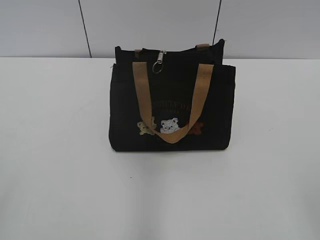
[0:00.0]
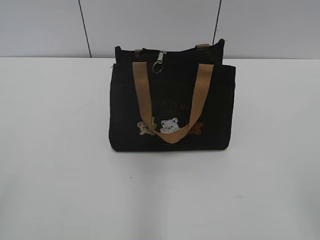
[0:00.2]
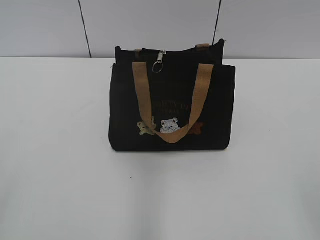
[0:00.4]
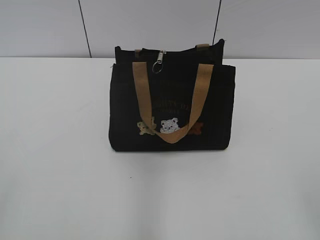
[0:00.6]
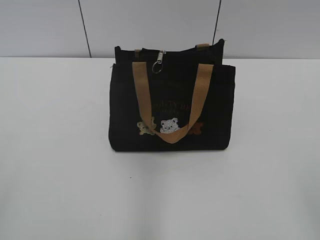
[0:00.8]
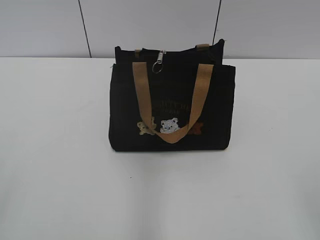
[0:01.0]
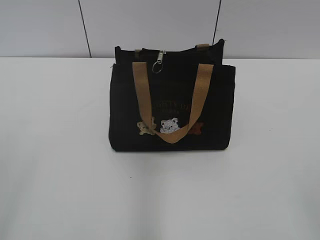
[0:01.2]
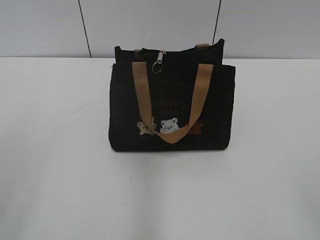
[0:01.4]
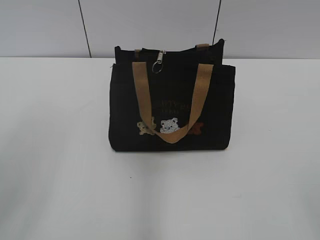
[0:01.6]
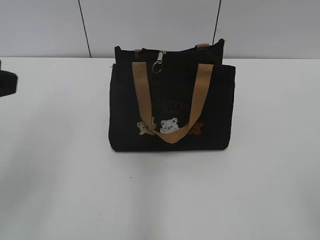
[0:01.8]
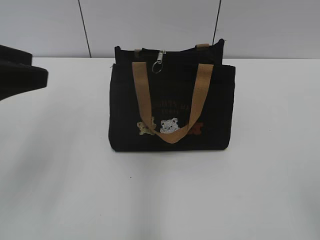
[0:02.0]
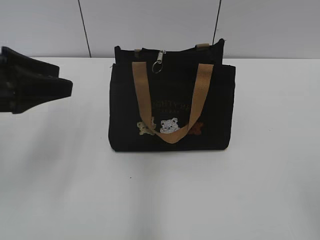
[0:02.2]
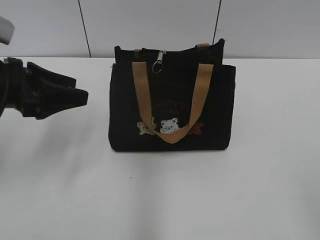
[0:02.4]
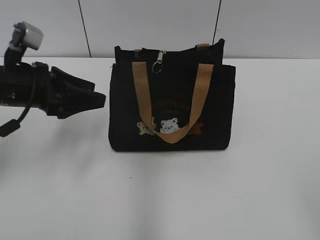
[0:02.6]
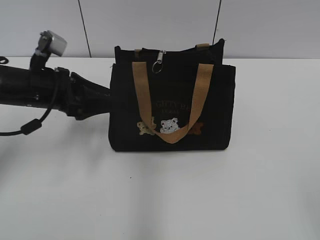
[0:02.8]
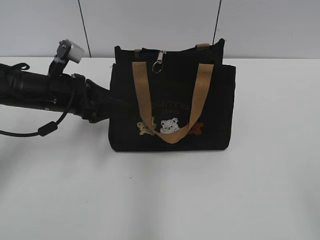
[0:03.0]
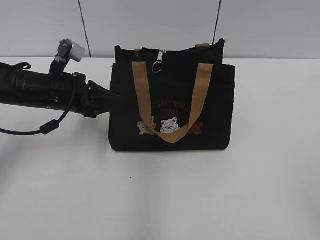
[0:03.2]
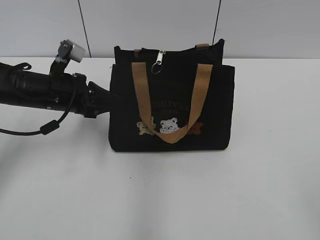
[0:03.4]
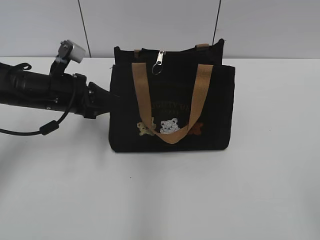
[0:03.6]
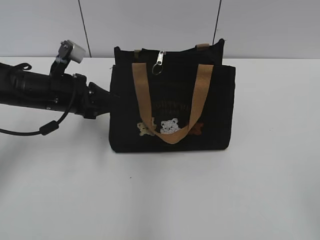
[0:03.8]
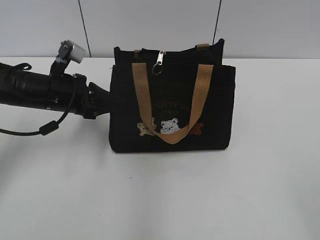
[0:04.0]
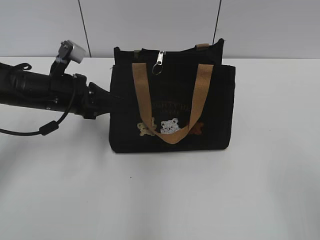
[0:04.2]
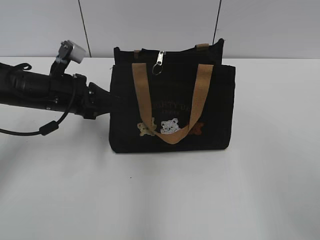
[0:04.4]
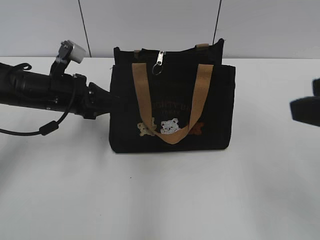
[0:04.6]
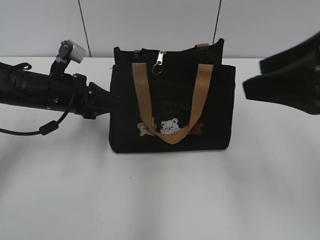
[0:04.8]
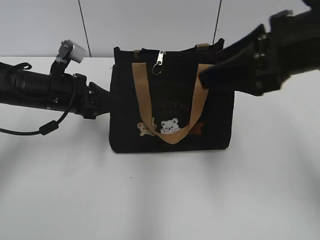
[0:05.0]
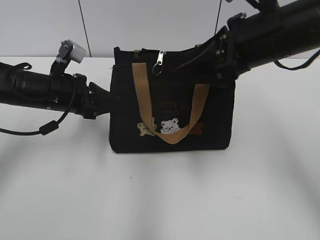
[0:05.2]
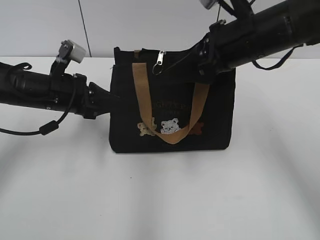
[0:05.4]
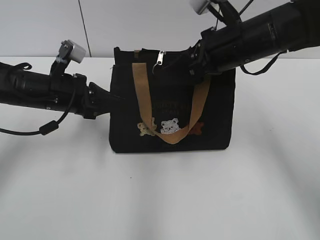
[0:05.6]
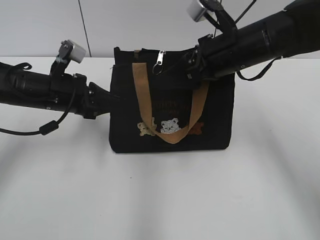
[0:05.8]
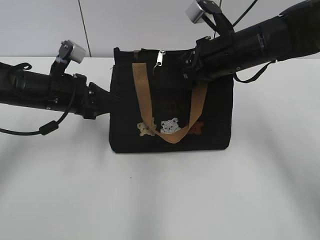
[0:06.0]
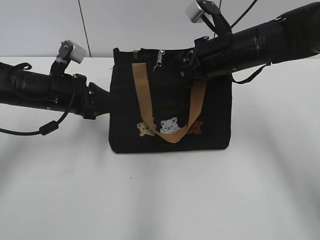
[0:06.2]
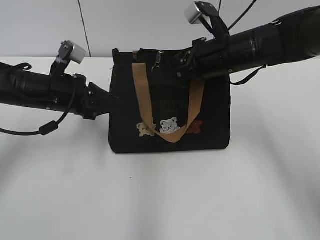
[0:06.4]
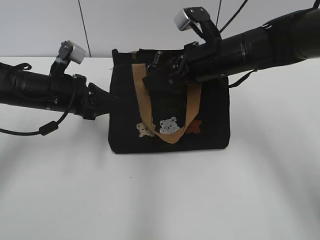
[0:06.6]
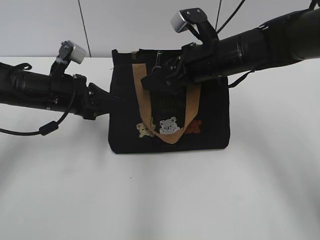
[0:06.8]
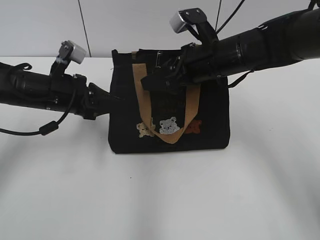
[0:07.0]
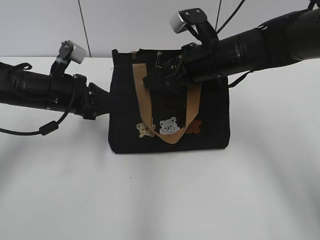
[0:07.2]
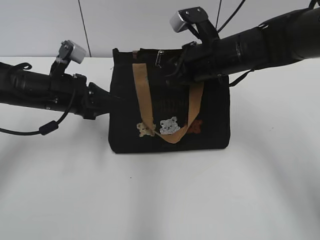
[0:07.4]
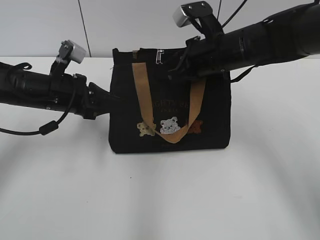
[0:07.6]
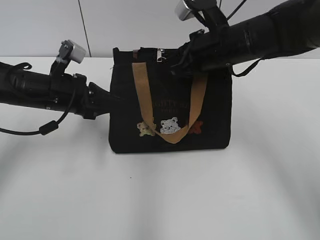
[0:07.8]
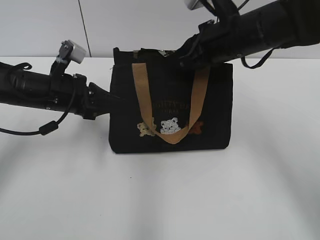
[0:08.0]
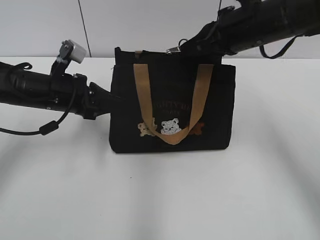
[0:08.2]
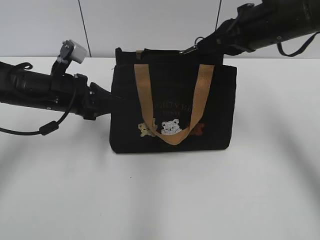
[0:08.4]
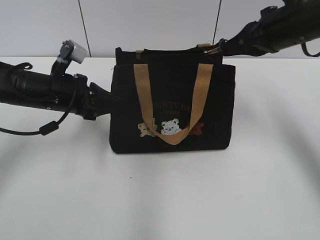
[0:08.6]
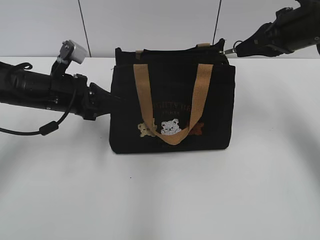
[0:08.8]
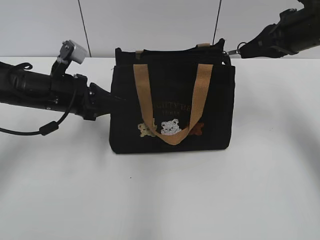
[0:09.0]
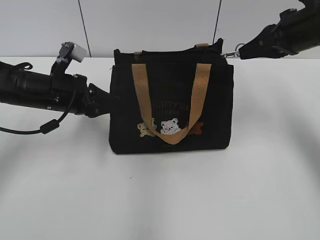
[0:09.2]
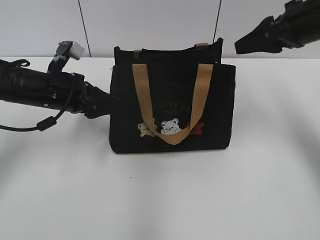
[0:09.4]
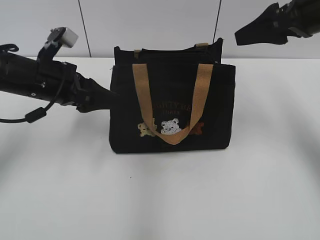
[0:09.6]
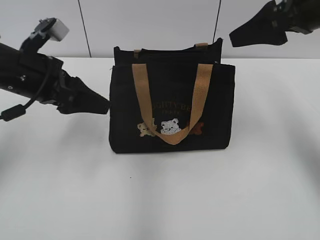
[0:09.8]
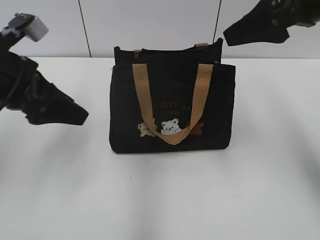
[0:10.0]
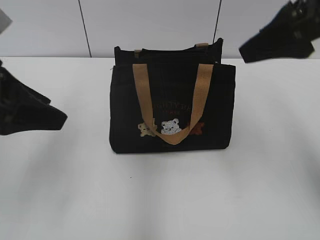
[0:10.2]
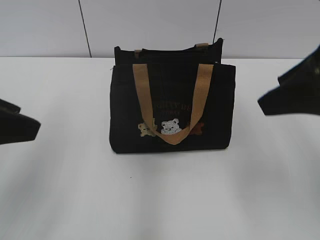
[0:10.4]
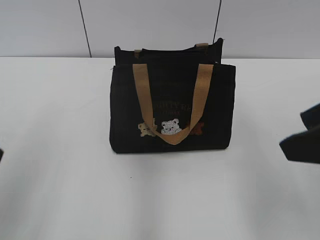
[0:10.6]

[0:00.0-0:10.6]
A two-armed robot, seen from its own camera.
Step, 0:00.0 to 0:09.2: Pull open the zipper with your right hand.
Step, 0:09.4 to 0:09.8: Hold the bag with your left hand.
0:01.6 to 0:03.0: The left gripper is displaced forward and downward by about 30 cm.
0:03.0 to 0:04.6: The left gripper closes; the right gripper travels forward by some 15 cm.
0:04.6 to 0:06.0: The right gripper shifts roughly 25 cm forward, to the left and downward.
0:06.0 to 0:07.6: The right gripper closes.
0:07.6 to 0:09.0: The right gripper moves to the right, some 15 cm.
0:09.0 to 0:10.6: The left gripper heads backward and upward, covering roughly 25 cm, and opens up; the right gripper is displaced backward by about 20 cm, and opens.

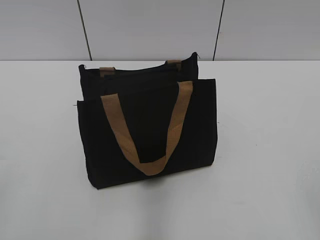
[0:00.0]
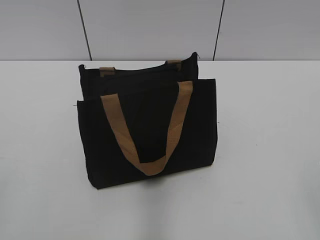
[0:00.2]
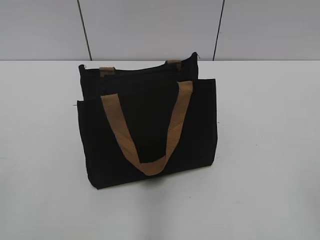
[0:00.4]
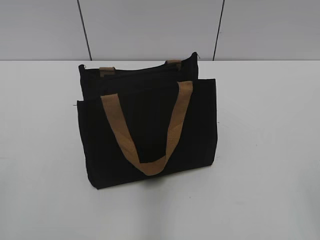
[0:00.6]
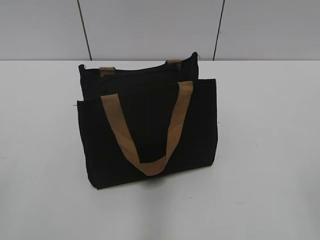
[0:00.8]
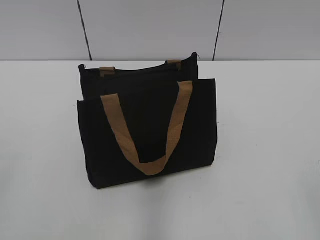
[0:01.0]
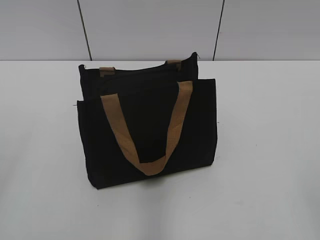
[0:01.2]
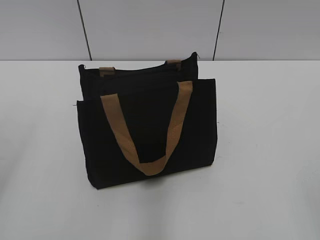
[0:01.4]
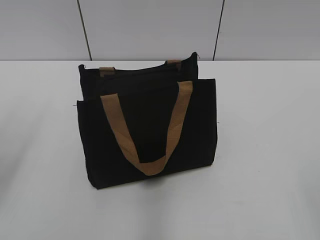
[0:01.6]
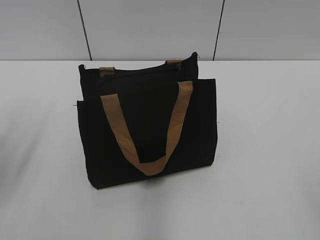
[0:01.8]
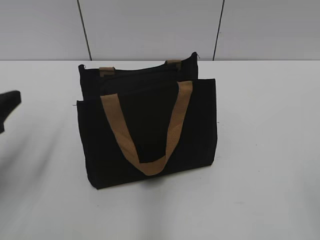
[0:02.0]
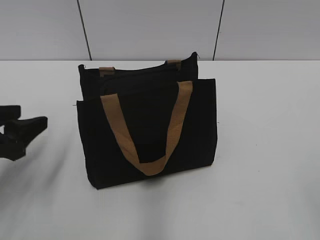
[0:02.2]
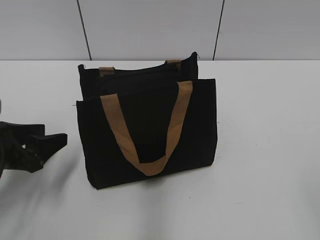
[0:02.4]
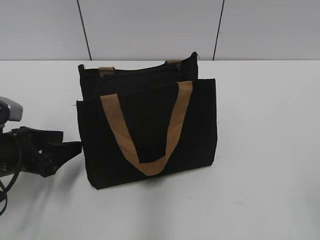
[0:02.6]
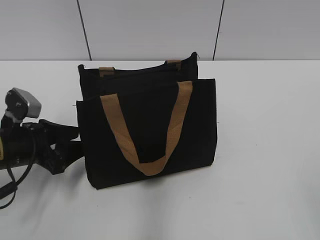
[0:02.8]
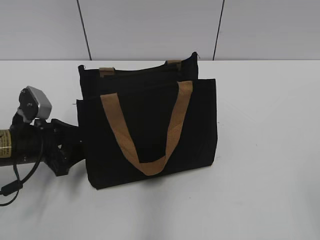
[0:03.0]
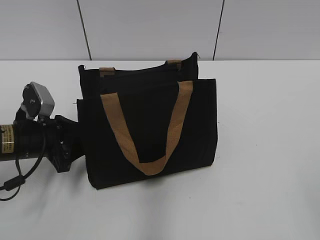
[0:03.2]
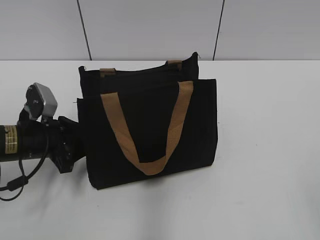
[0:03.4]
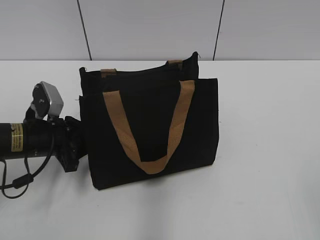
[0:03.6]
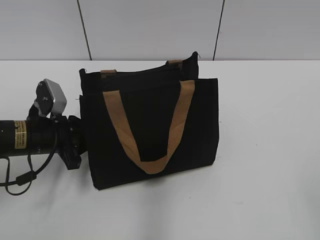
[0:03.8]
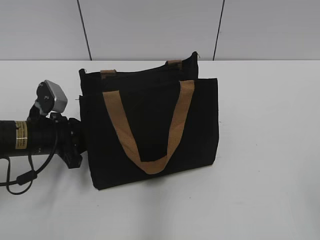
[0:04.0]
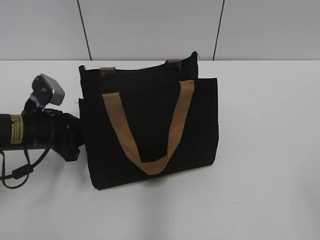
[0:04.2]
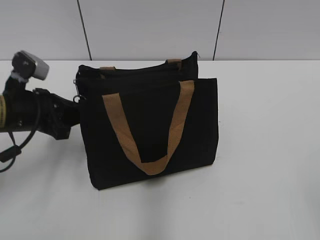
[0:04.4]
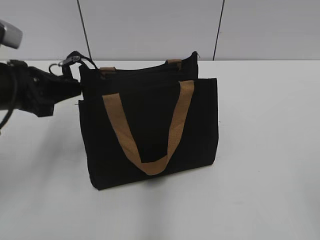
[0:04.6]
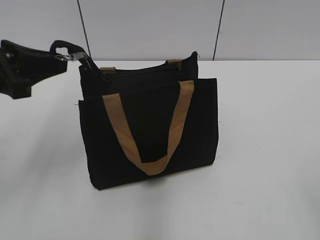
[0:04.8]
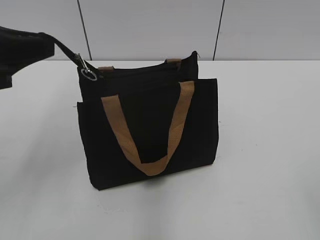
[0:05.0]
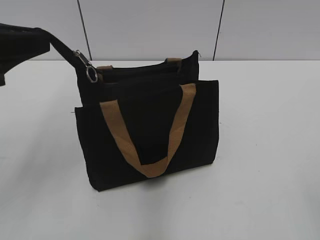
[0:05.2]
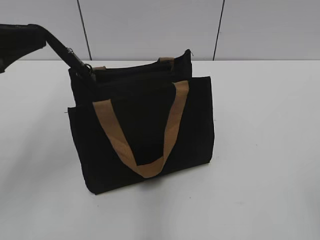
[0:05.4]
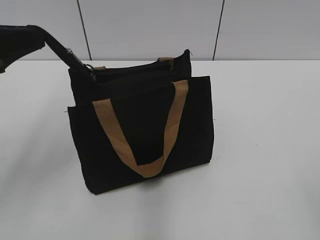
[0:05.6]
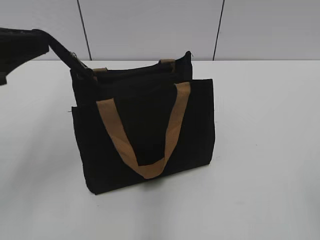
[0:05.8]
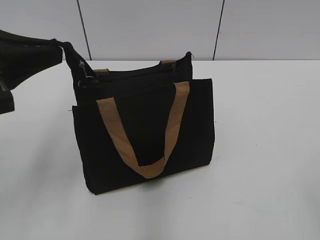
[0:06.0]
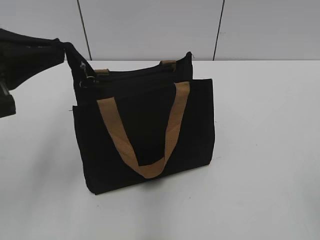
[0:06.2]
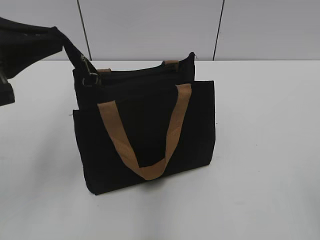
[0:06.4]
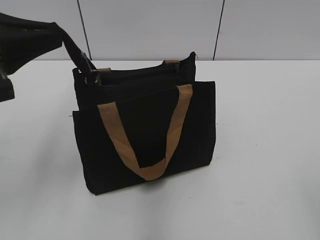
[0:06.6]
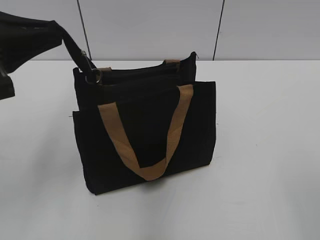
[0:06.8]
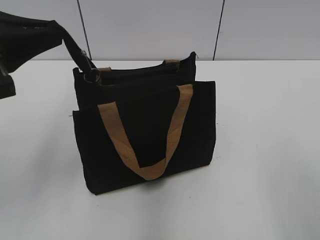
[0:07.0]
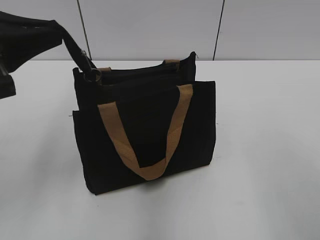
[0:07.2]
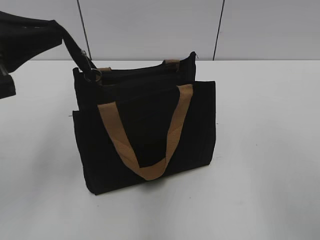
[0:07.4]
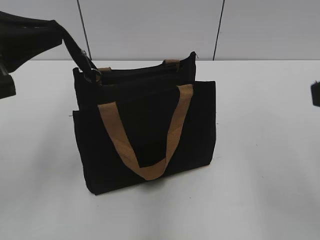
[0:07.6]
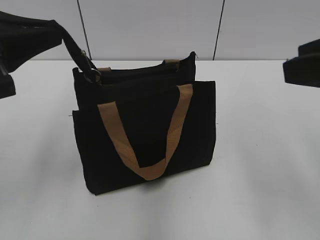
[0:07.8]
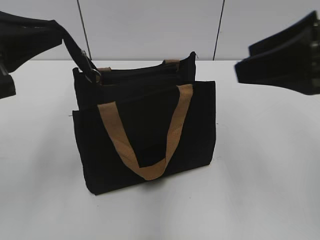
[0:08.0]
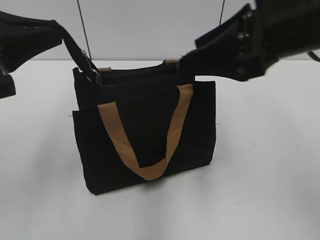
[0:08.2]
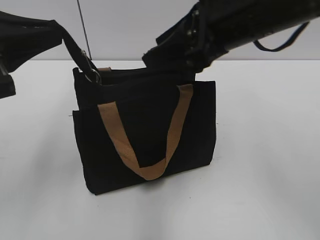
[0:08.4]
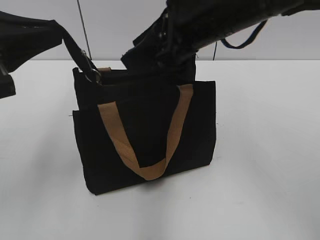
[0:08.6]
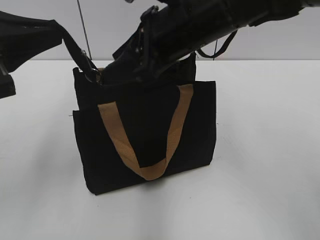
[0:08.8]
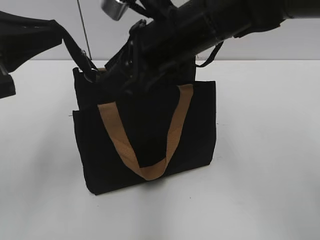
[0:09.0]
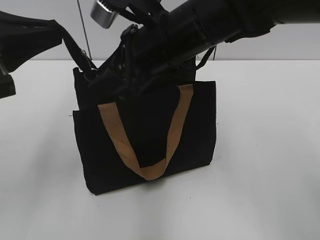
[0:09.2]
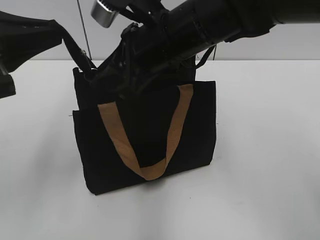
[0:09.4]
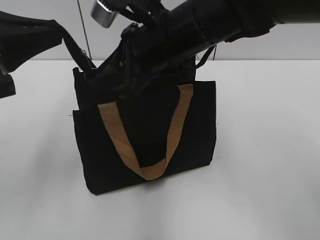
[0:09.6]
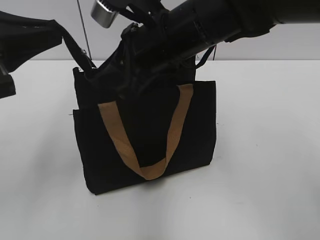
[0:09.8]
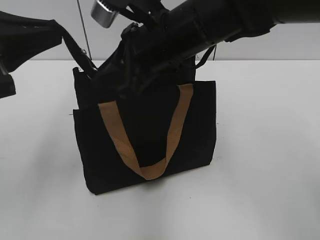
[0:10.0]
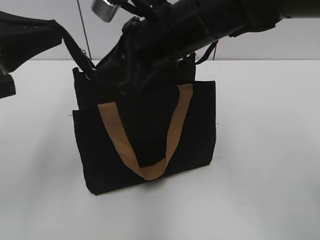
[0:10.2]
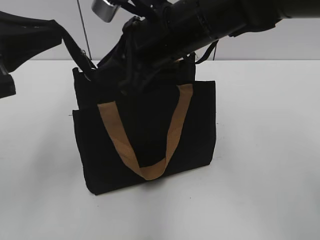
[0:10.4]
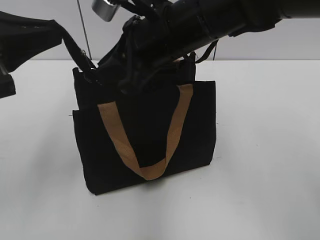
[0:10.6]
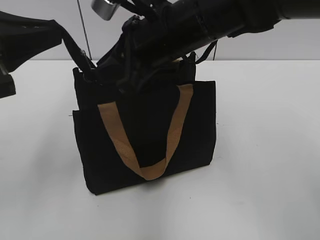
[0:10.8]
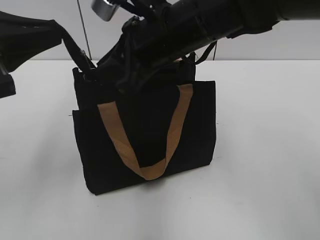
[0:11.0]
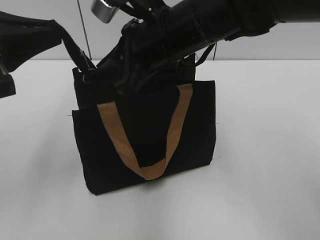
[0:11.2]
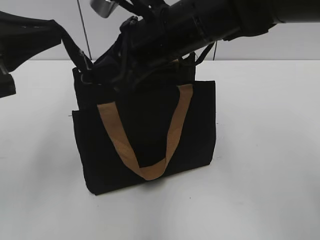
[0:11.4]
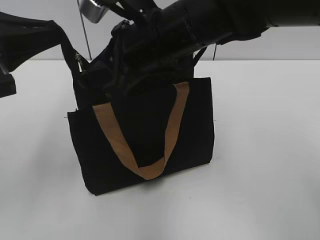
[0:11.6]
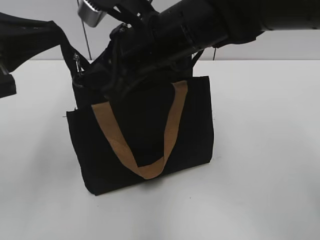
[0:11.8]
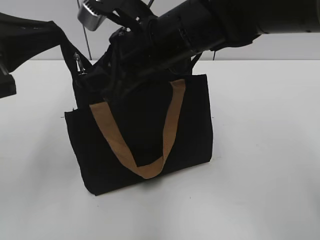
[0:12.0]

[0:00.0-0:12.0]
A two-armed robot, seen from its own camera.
0:01.6 to 0:03.0: The left gripper goes roughly 25 cm downward and forward.
0:03.0 to 0:04.4: The left gripper closes its fingers.
0:04.4 to 0:06.0: The left gripper is displaced upward and backward by roughly 15 cm.
0:06.0 to 0:07.6: The right gripper moves forward and upward, approximately 15 cm.
0:07.6 to 0:09.0: The right gripper goes some 30 cm to the left and forward.
0:09.0 to 0:10.4: The right gripper closes up.
0:10.4 to 0:12.0: There are only small adjustments of the grippers.
